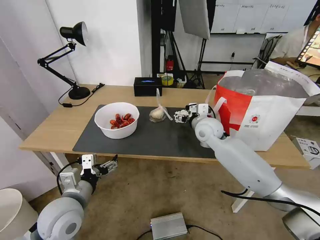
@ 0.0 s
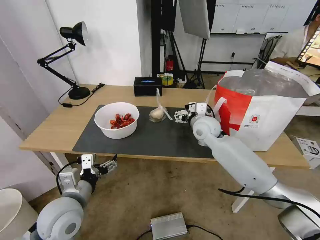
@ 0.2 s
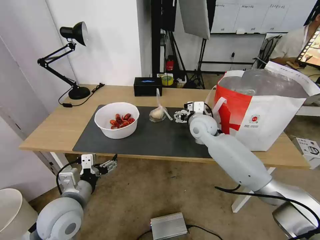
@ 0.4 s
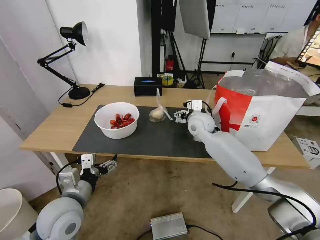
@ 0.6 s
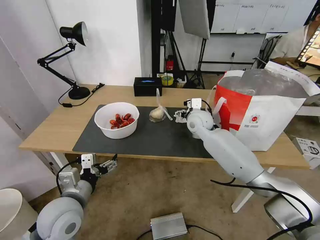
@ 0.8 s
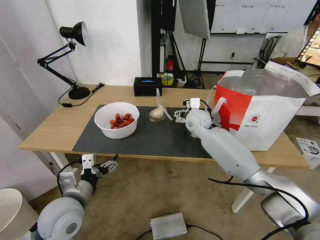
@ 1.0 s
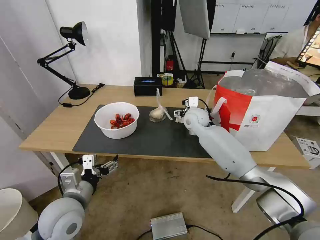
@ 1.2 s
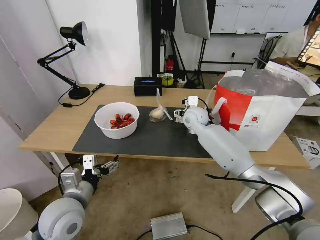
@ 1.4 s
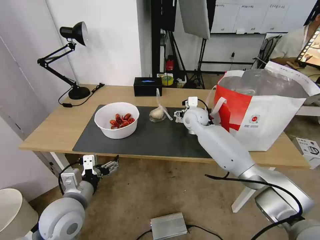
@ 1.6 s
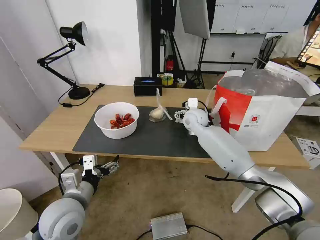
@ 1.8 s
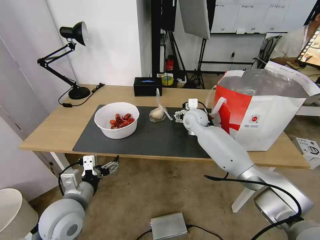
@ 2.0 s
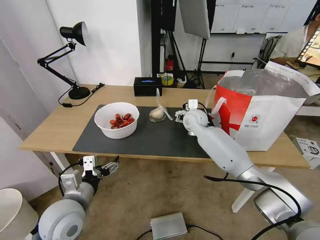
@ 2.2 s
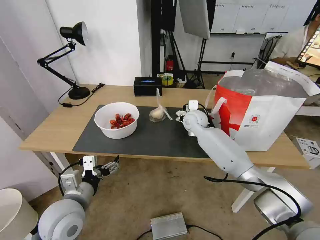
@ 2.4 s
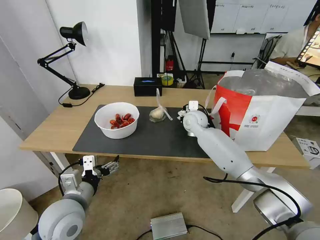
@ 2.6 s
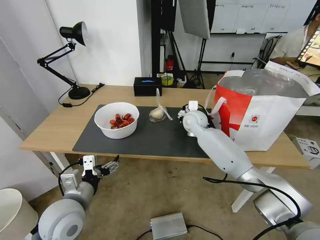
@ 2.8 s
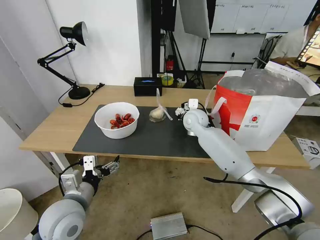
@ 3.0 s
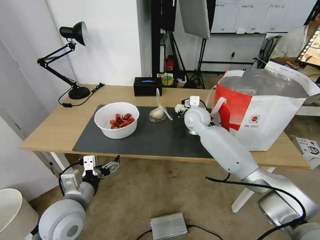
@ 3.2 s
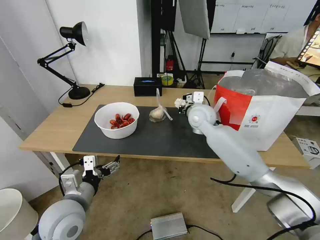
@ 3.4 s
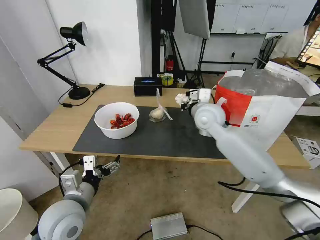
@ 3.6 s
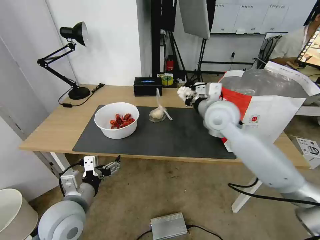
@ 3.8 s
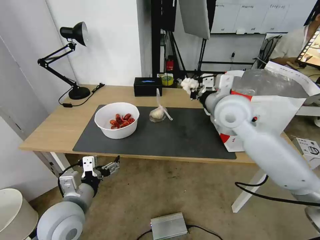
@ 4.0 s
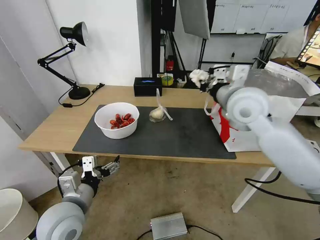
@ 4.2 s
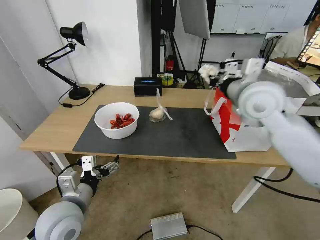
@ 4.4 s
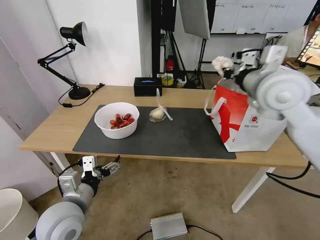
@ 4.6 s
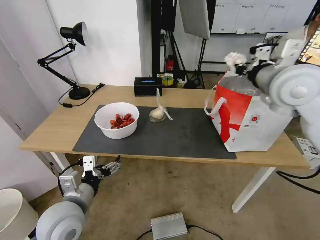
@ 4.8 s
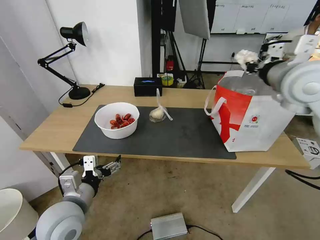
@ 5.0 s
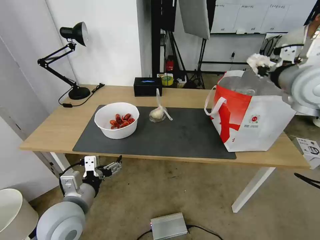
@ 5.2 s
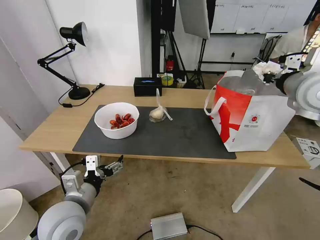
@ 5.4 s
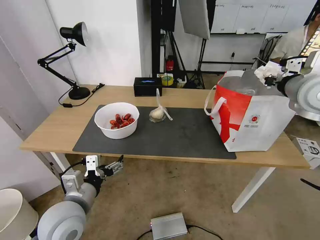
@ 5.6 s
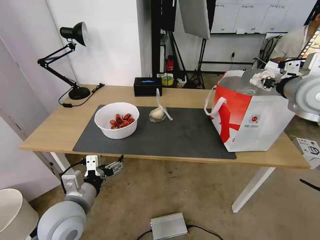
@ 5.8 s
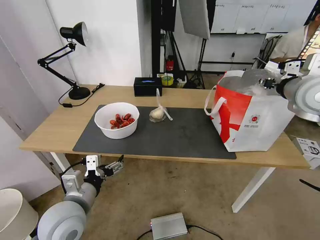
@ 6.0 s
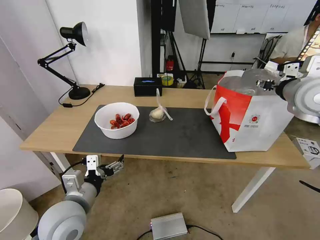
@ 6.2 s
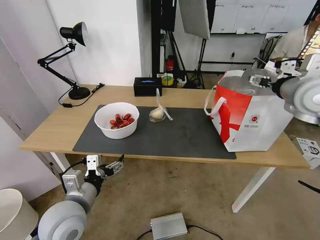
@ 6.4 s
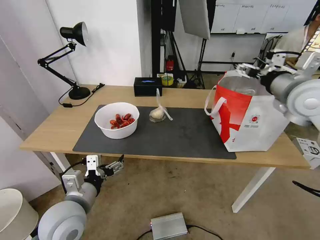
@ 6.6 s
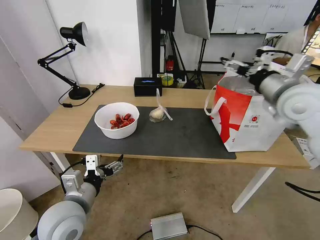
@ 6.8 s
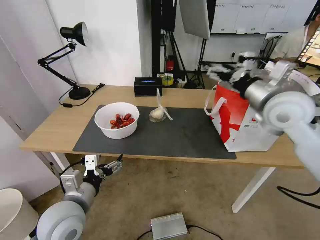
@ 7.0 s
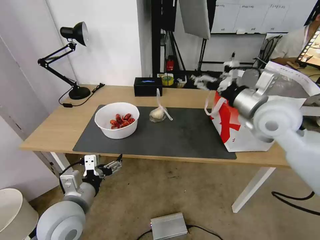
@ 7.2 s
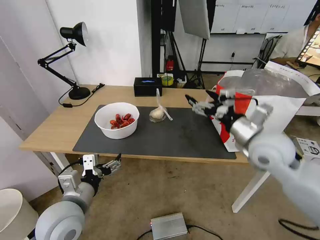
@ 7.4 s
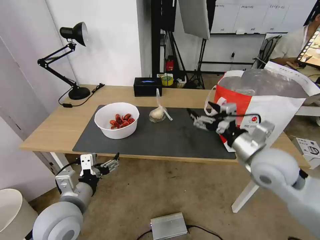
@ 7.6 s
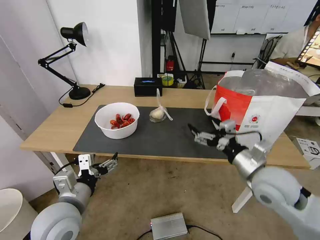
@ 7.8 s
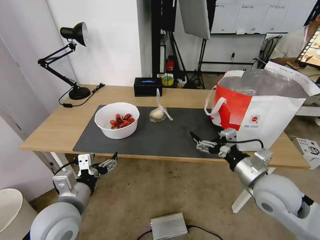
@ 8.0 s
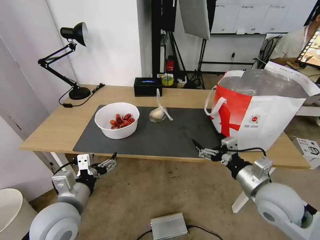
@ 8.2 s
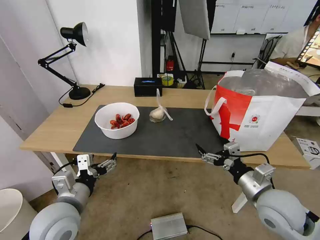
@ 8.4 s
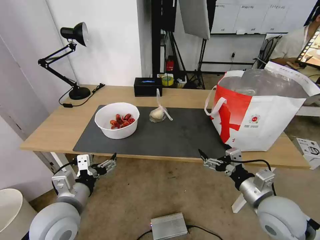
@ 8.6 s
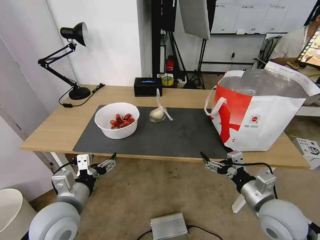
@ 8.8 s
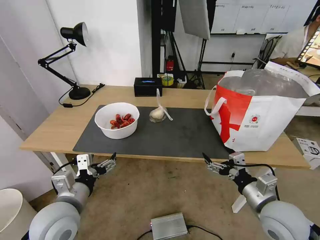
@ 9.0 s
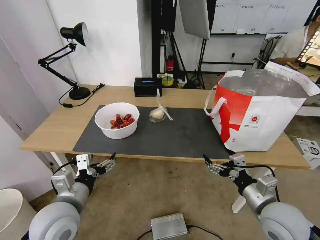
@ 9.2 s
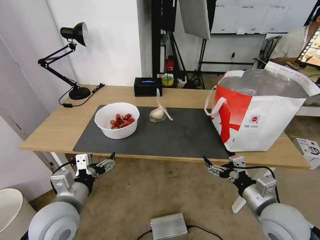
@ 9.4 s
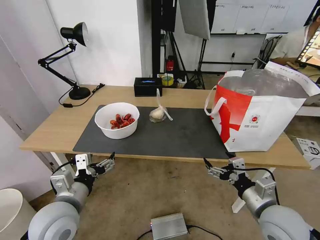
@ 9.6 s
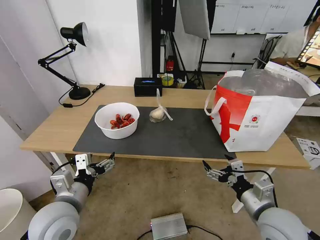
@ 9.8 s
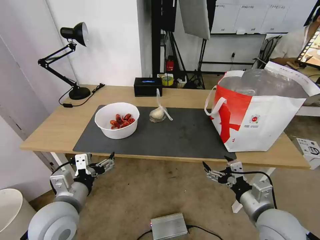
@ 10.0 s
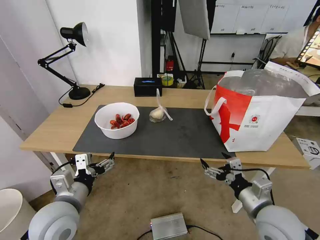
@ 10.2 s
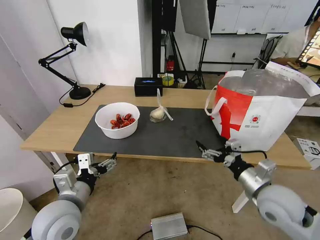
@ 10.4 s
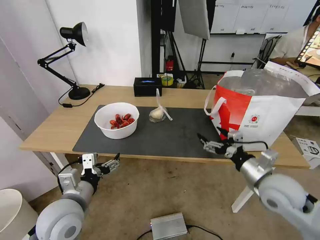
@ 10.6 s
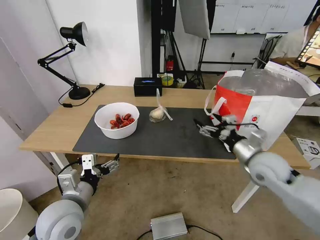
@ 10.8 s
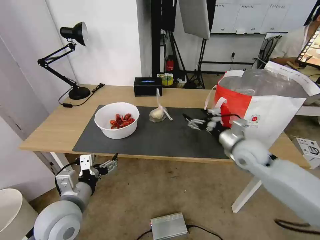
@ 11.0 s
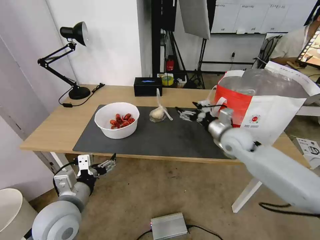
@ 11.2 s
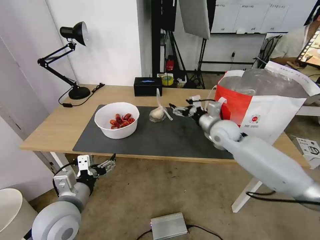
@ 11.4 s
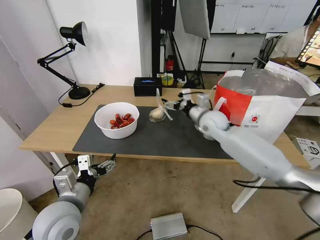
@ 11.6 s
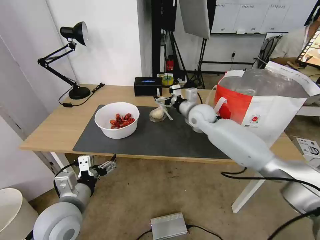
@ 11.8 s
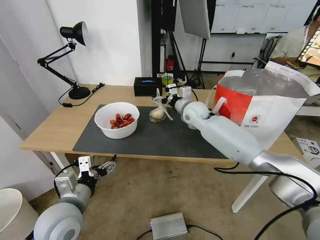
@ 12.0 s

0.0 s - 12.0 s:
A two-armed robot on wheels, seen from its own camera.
Task of the whole recording: Pick up the trash from the table and place it into the takeout bag.
0.0 s - 1.6 s: The right gripper moves forward, some 5 cm.
1.6 s - 3.0 s: The right gripper closes its fingers.
3.0 s - 4.4 s: The right gripper goes roughly 25 cm upward, backward and to the right.
4.4 s - 6.0 s: The right gripper is displaced to the right by some 15 cm, and opens.
6.0 s - 7.6 s: The right gripper is displaced downward, backward and to the left by approximately 20 cm, and opens.
7.6 s - 9.0 s: The right gripper shifts about 15 cm downward and backward.
9.0 s - 10.4 s: The grippers move only a little.
10.4 s - 12.0 s: The right gripper goes about 35 cm forward and to the left.

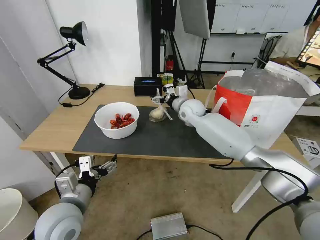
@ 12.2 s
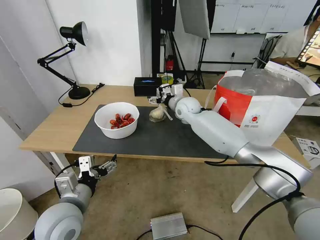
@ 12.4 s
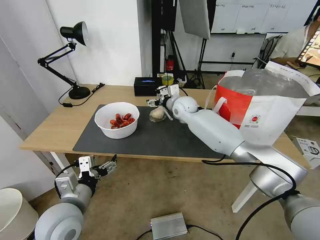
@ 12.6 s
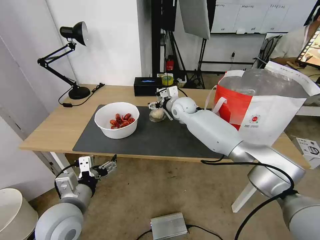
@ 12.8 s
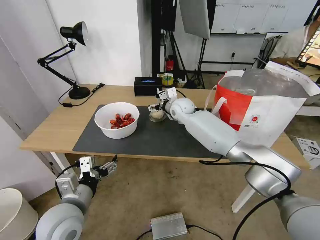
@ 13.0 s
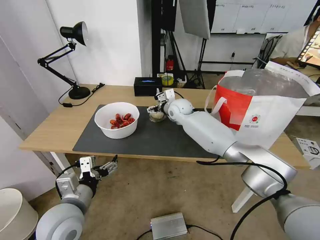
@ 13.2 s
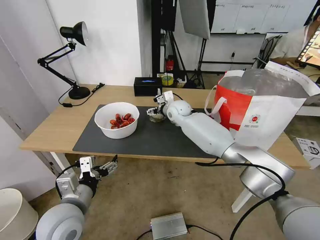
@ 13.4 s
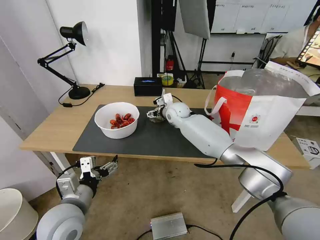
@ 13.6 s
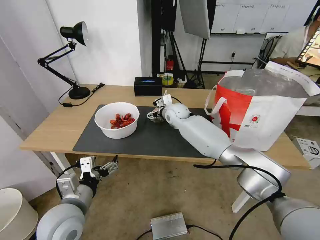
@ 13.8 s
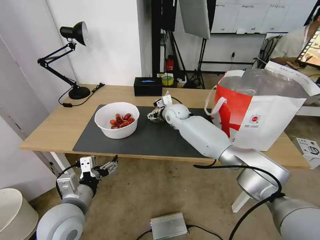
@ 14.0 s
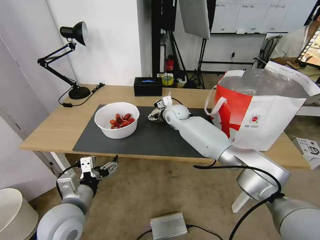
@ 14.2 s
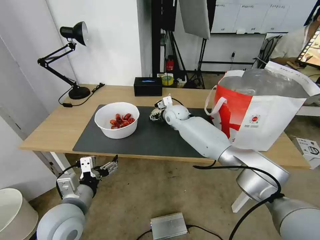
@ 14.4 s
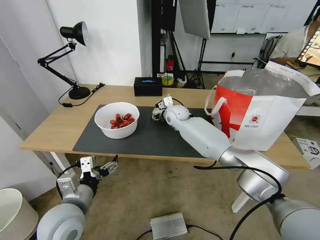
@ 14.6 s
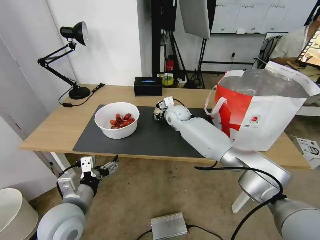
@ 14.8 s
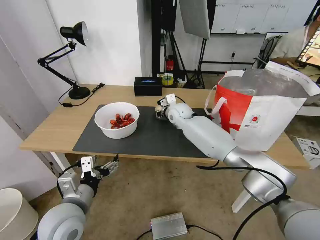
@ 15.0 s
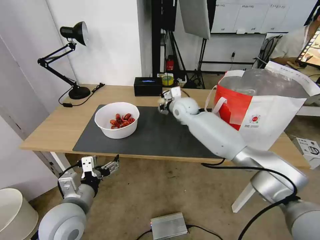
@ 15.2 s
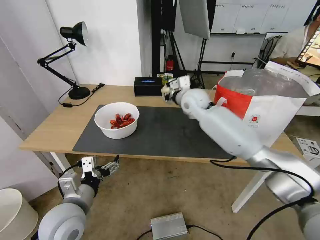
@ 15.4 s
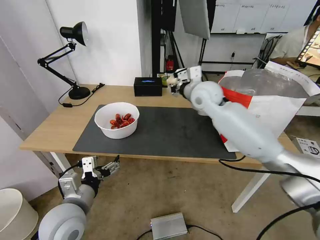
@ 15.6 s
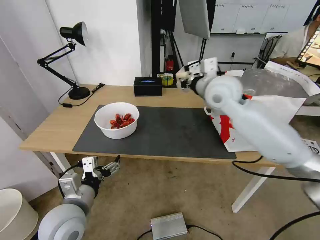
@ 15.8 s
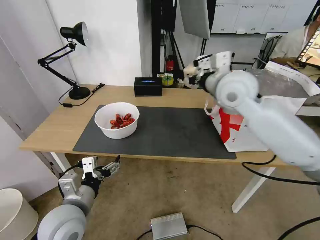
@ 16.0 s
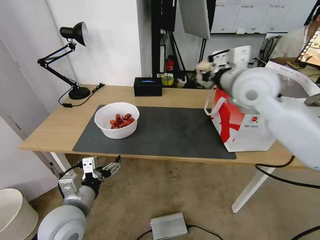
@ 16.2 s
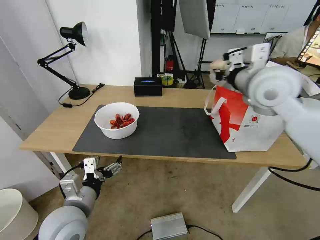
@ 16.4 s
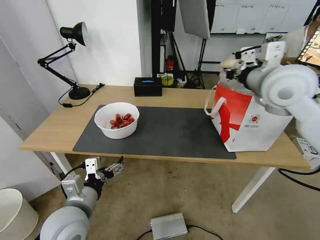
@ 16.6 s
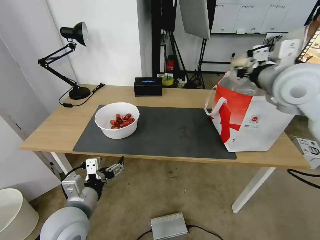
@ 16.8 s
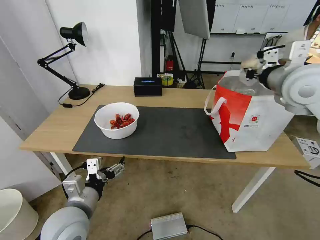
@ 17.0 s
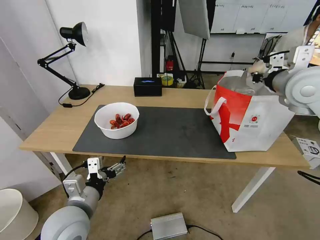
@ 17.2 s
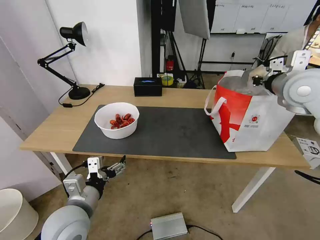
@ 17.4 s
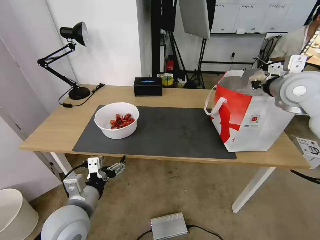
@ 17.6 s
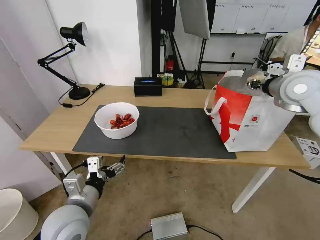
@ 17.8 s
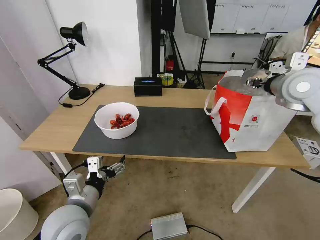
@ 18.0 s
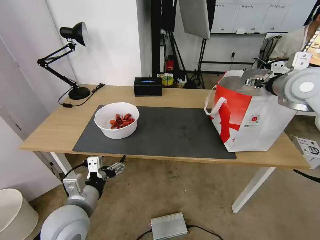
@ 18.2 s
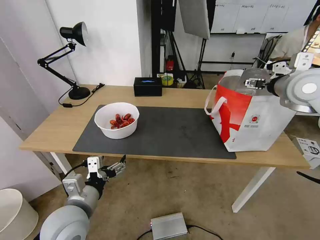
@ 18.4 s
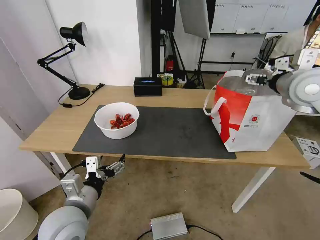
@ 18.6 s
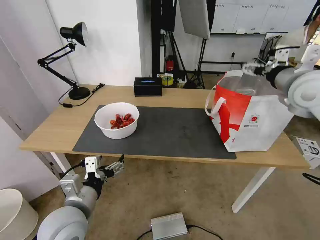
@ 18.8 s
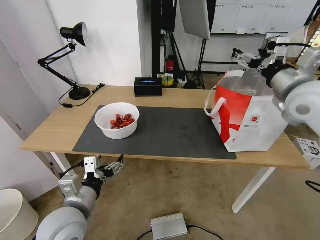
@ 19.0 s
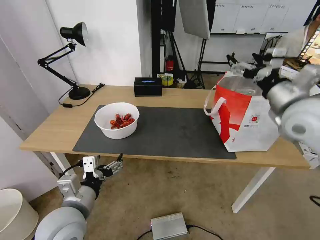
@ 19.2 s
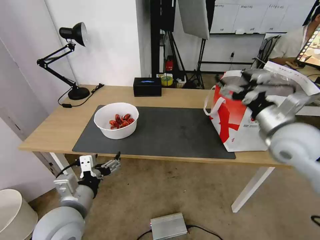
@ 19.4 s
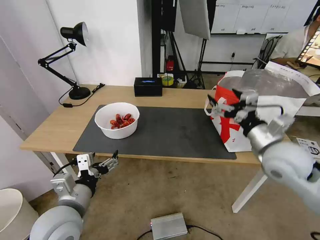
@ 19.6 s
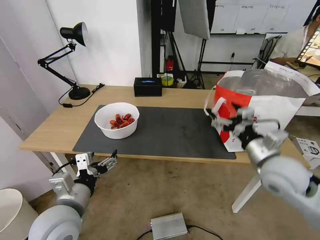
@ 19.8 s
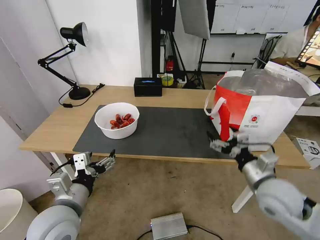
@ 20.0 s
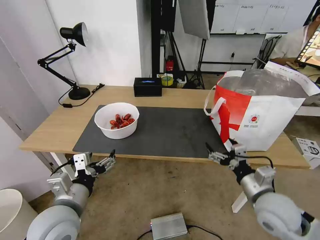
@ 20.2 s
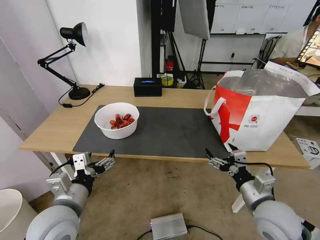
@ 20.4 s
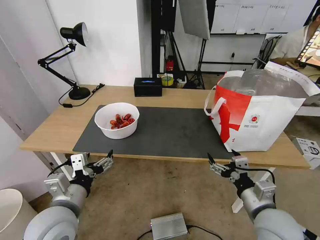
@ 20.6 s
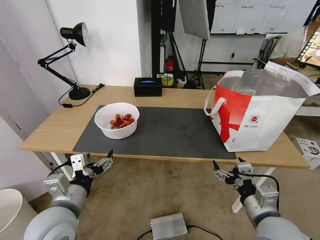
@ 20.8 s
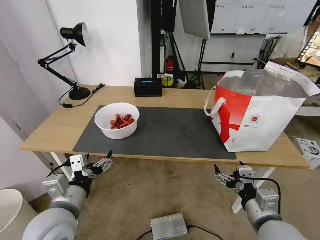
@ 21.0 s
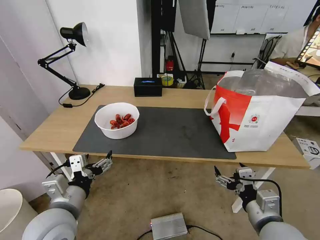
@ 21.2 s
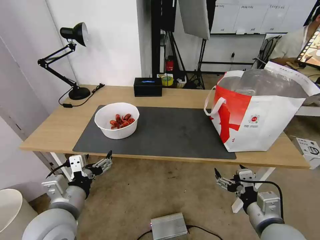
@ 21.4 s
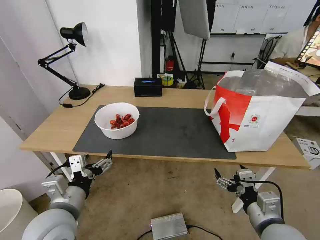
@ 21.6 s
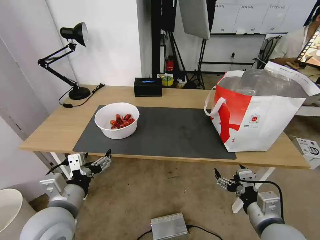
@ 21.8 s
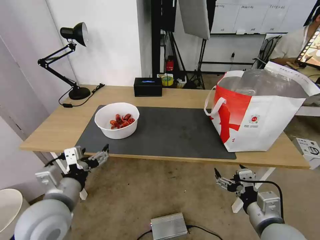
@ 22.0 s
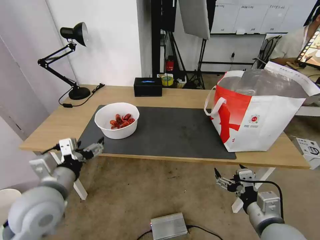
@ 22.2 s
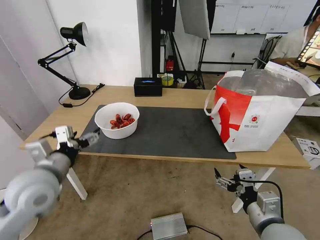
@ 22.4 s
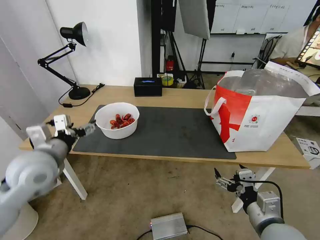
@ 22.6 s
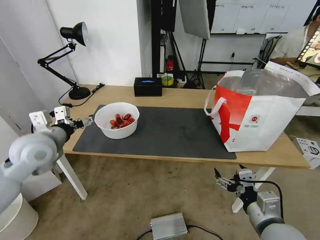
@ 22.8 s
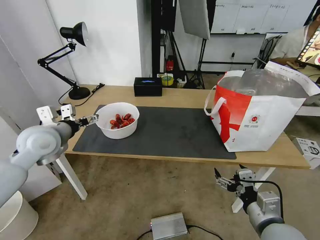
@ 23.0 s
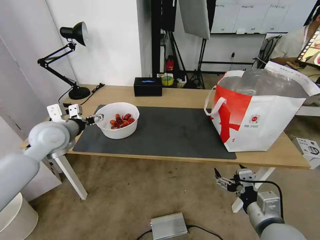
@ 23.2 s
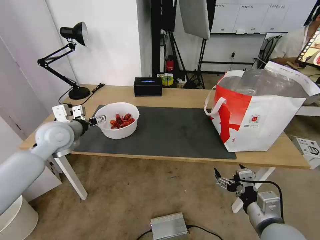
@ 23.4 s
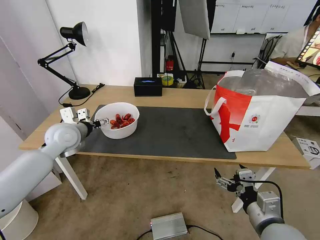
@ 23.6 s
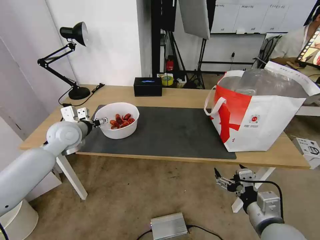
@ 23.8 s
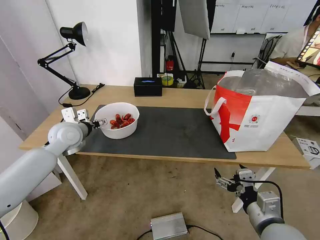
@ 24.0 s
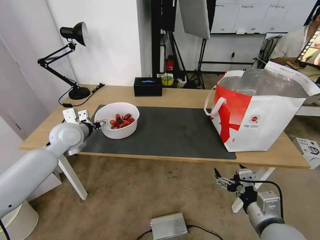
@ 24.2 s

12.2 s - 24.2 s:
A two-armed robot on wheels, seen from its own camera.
Task of the whole recording: Pick up the trash from the table and place it into the takeout bag.
12.2 s - 13.8 s: The right gripper goes some 5 cm to the left.
13.8 s - 15.2 s: The right gripper moves approximately 5 cm, and closes its fingers.
15.2 s - 16.6 s: The right gripper goes about 30 cm upward, backward and to the right.
16.6 s - 18.2 s: The right gripper heads to the right, covering about 10 cm, and opens its fingers.
18.2 s - 19.8 s: The right gripper travels downward and backward by roughly 20 cm.
19.8 s - 21.2 s: The right gripper travels backward and downward by approximately 15 cm.
21.2 s - 22.6 s: The left gripper shifts about 15 cm forward, to the left and upward.
22.6 s - 24.2 s: The left gripper moves forward, roughly 15 cm.
